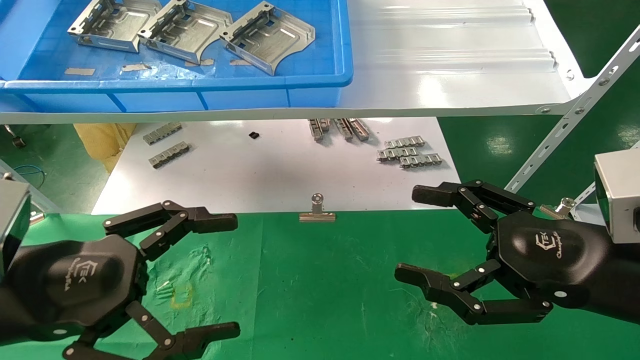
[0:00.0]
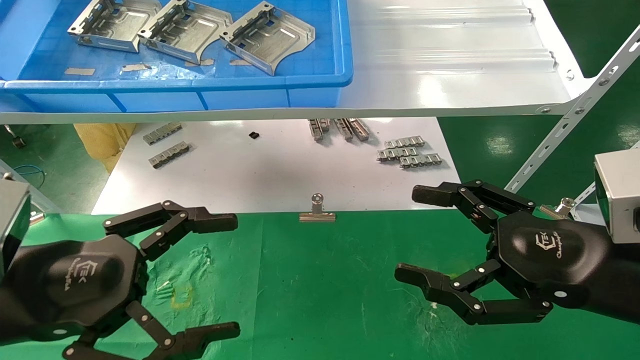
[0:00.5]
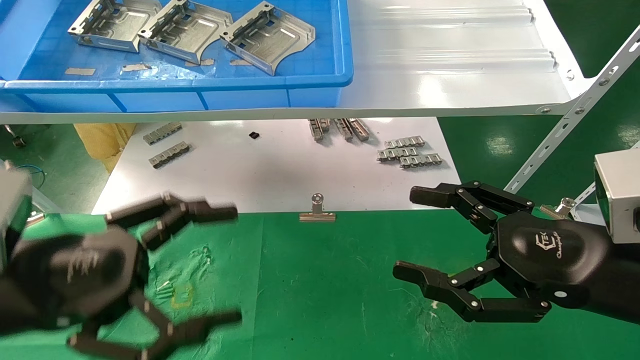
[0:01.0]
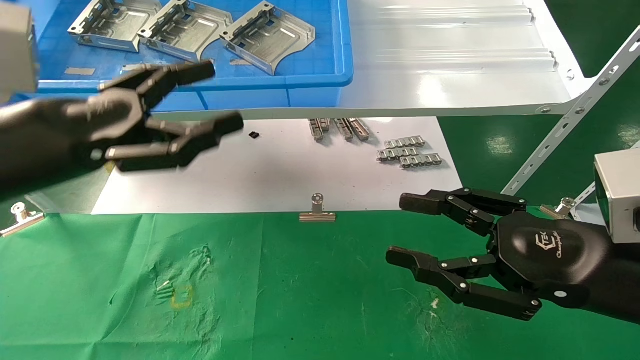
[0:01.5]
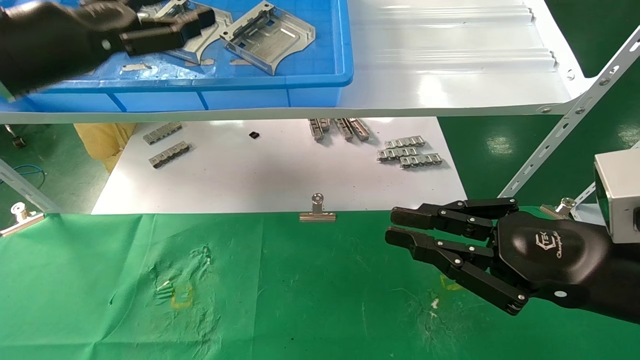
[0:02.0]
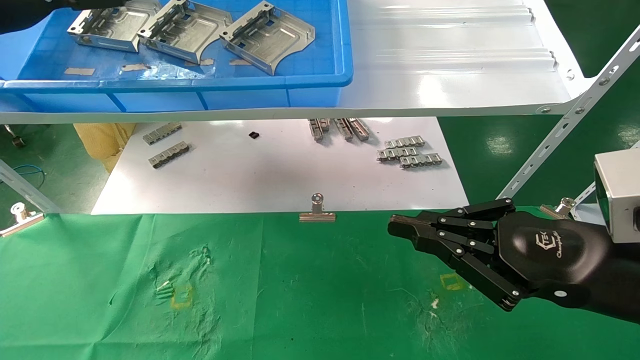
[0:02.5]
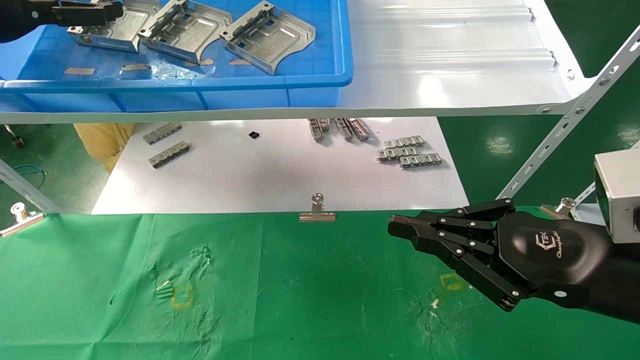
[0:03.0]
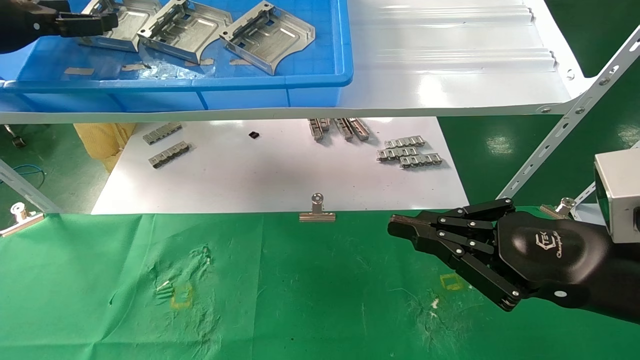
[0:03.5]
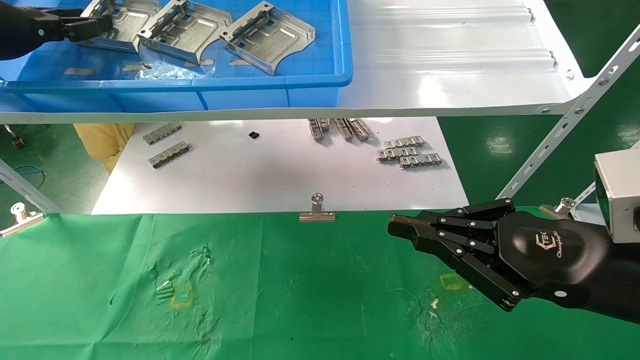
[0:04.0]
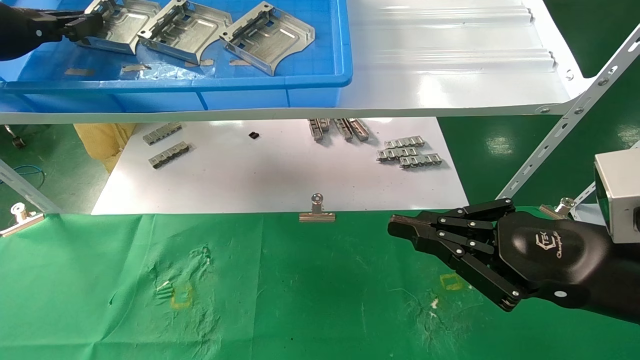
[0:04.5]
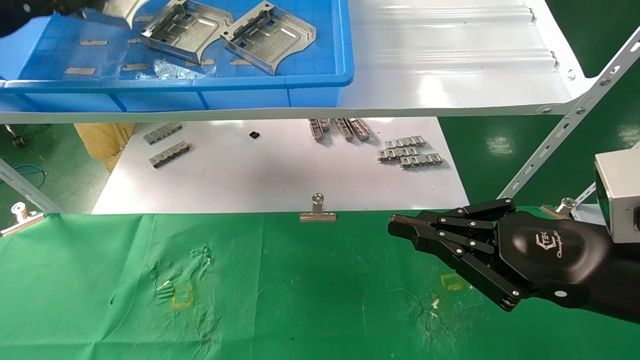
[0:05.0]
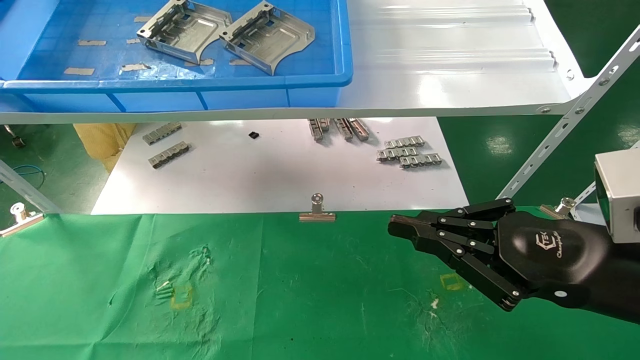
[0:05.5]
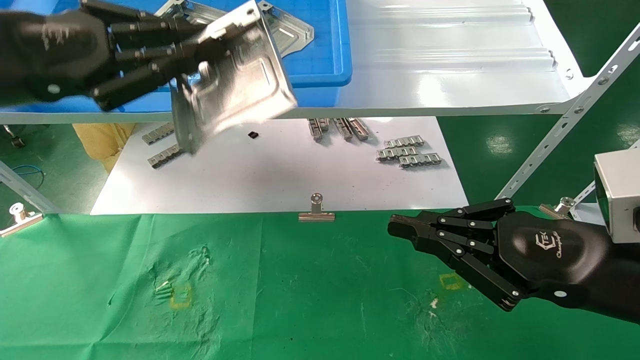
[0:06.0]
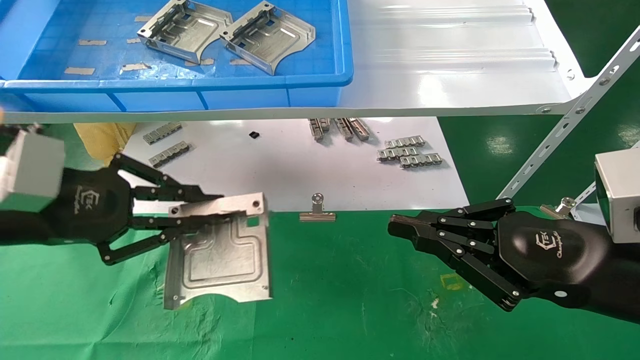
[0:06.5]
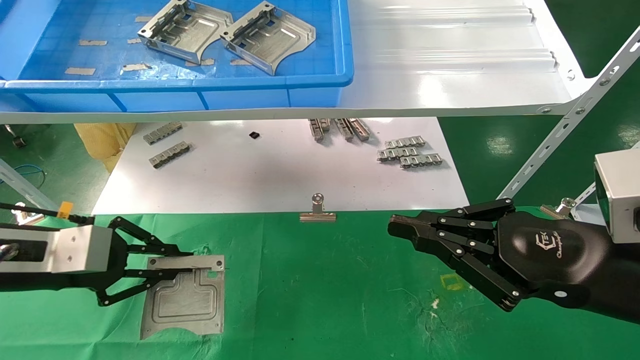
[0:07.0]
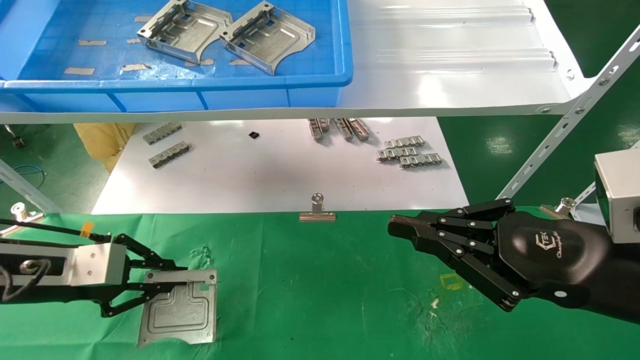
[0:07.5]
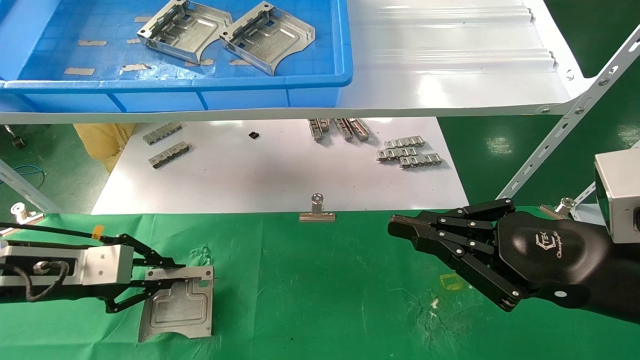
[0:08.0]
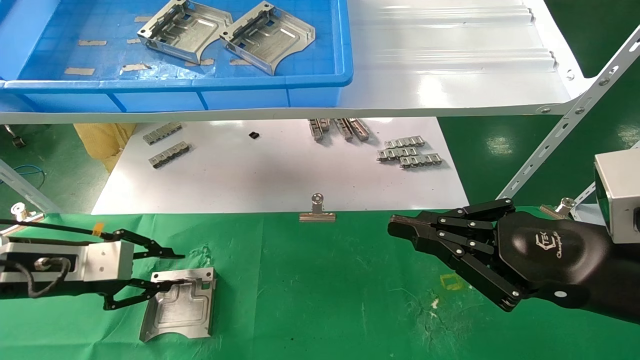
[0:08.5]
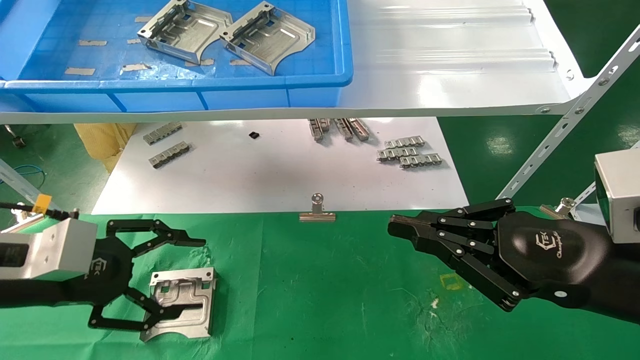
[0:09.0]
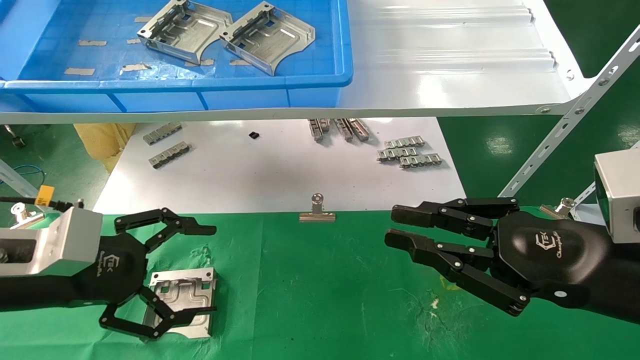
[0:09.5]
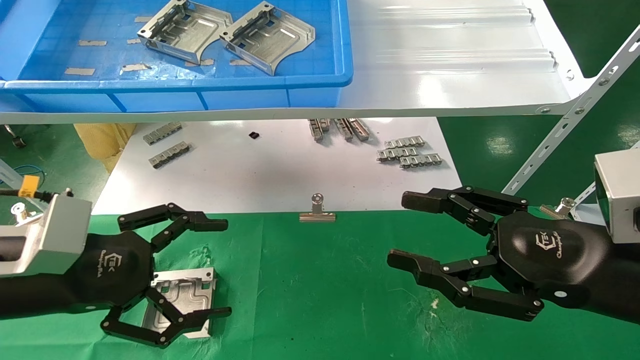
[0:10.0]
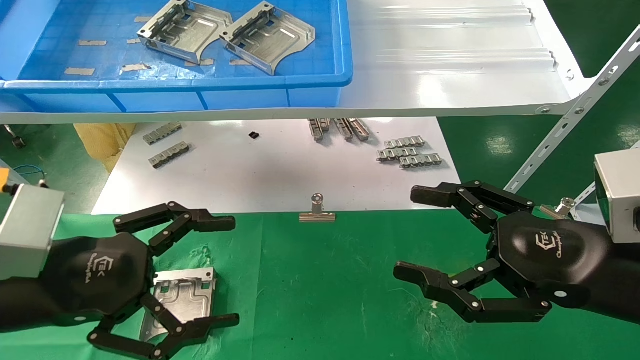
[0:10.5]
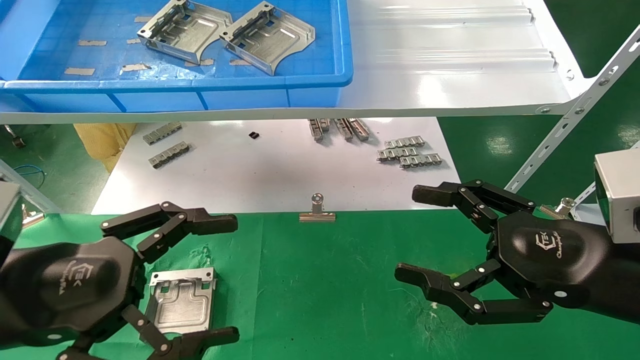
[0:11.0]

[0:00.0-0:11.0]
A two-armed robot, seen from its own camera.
Task of the whole recording: use the mechanical arm to pick up the parts and place them on the table.
Step, 0:01.5 to 0:04.5: Pick up the hard drive bracket from the feeding area.
Step, 0:05.0 to 0:08.0: Place the hard drive bracket into the box.
0:00.0 to 0:02.0: The right gripper closes its fingers. Meanwhile the left gripper heads upward and forward, covering approximately 20 cm.
0:02.0 to 0:03.5: The left gripper is displaced to the left and forward by approximately 10 cm.
0:03.5 to 0:05.5: The left gripper travels backward by about 5 cm, and closes its fingers.
0:05.5 to 0:07.5: The left gripper moves downward, some 25 cm.
0:07.5 to 0:09.0: The left gripper shifts by some 5 cm, and opens up.
0:09.0 to 0:11.0: The left gripper moves backward and to the right, approximately 10 cm, and opens its fingers. Meanwhile the right gripper opens its fingers.
